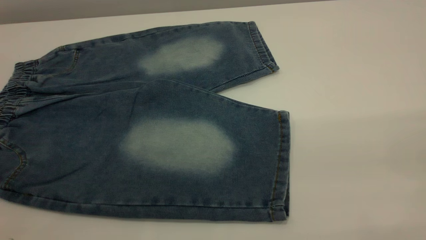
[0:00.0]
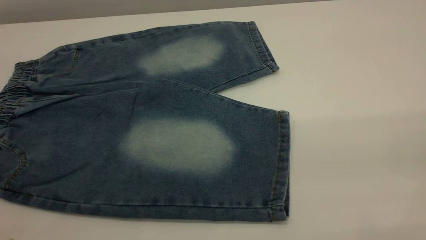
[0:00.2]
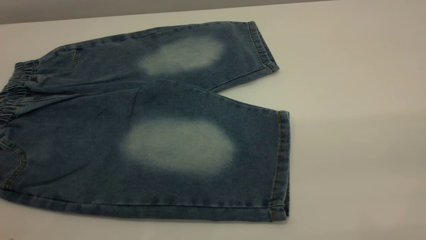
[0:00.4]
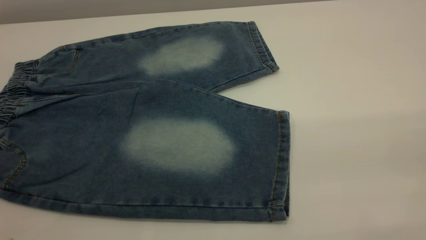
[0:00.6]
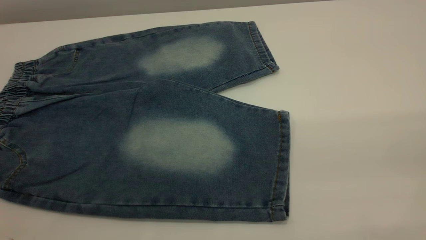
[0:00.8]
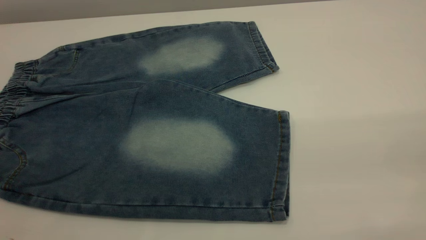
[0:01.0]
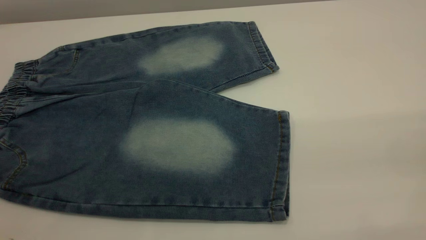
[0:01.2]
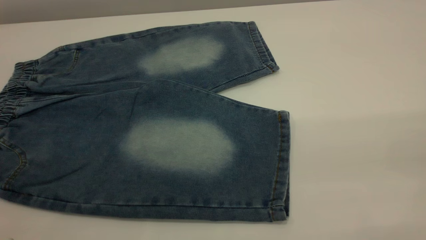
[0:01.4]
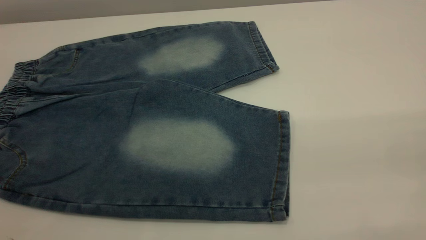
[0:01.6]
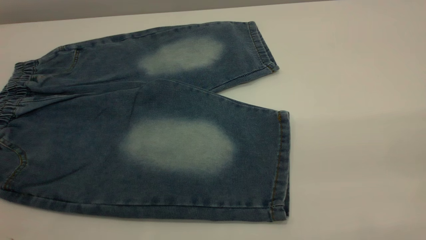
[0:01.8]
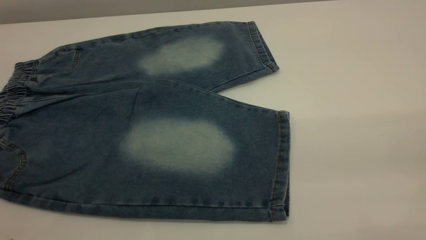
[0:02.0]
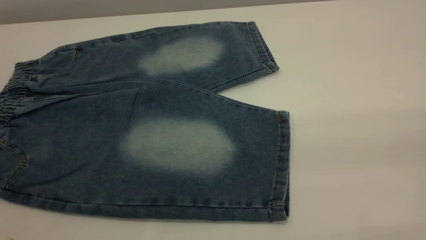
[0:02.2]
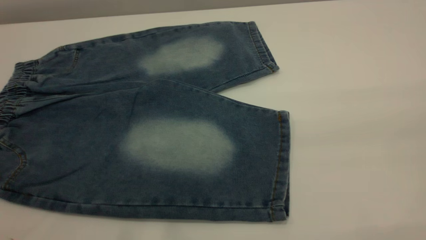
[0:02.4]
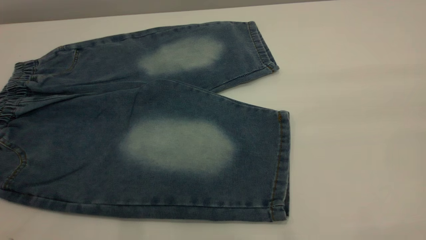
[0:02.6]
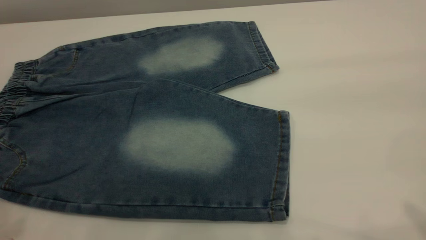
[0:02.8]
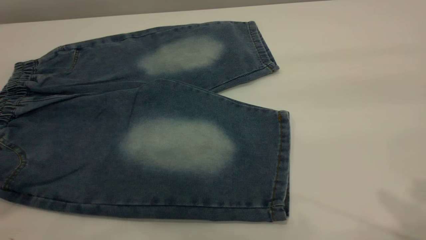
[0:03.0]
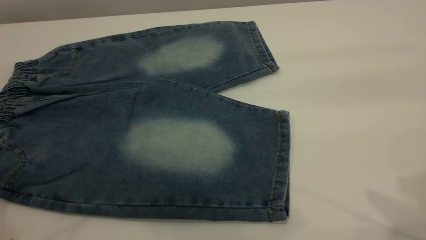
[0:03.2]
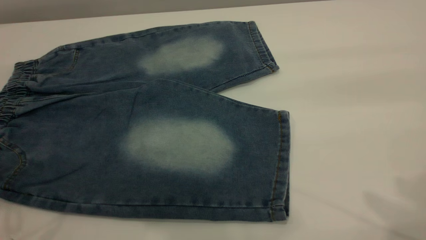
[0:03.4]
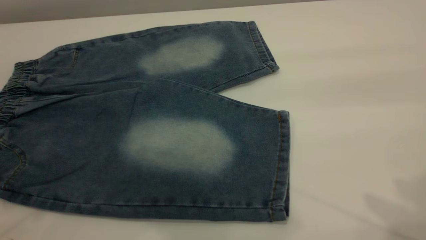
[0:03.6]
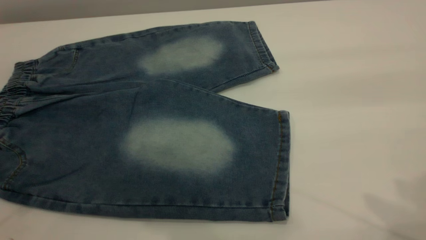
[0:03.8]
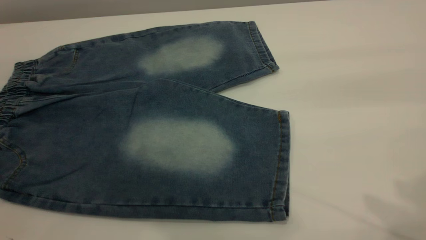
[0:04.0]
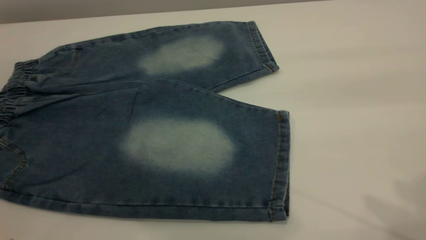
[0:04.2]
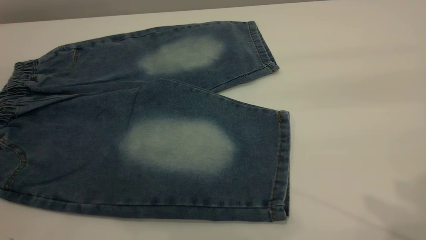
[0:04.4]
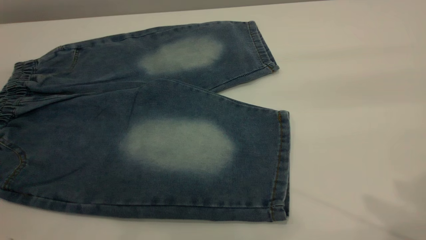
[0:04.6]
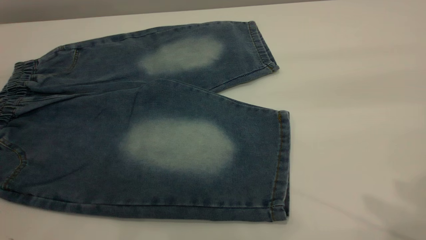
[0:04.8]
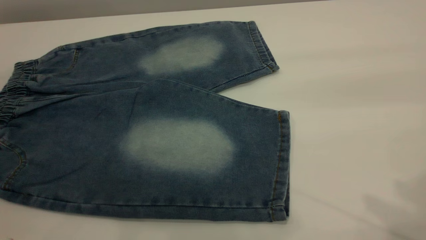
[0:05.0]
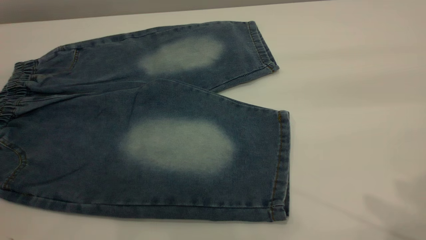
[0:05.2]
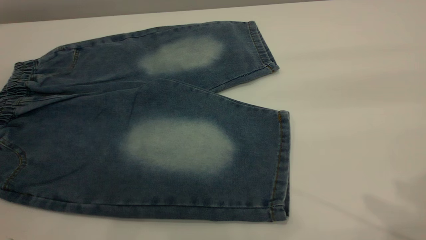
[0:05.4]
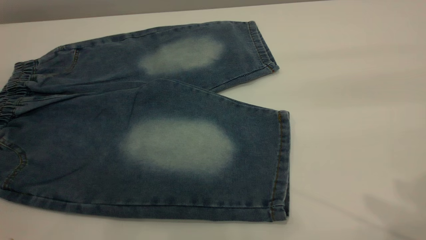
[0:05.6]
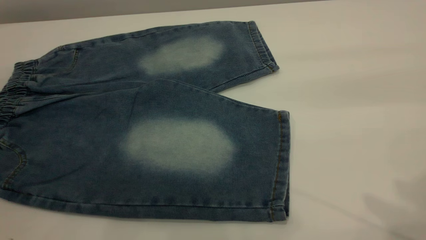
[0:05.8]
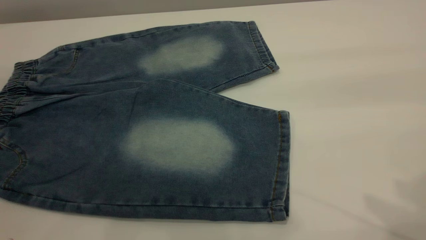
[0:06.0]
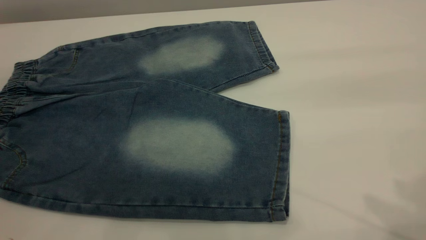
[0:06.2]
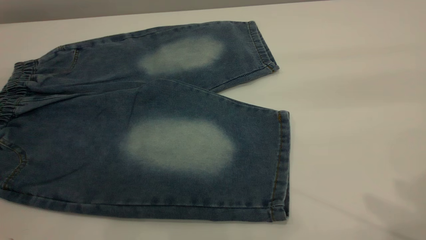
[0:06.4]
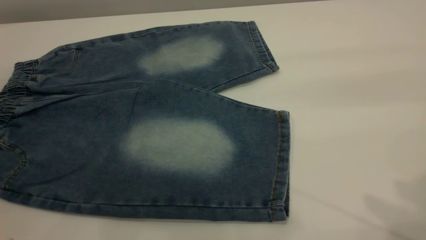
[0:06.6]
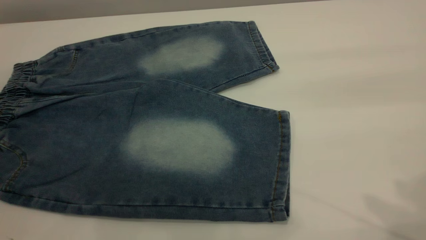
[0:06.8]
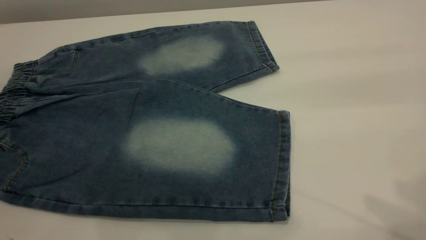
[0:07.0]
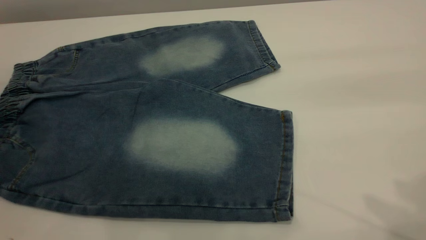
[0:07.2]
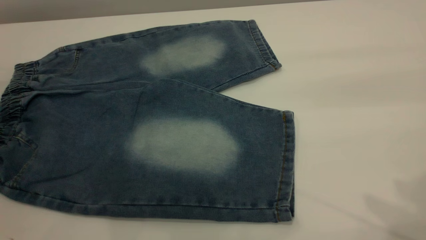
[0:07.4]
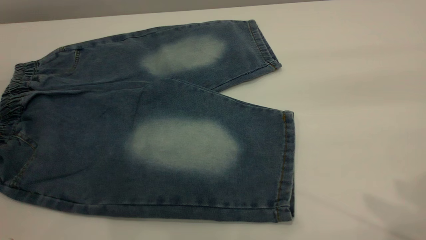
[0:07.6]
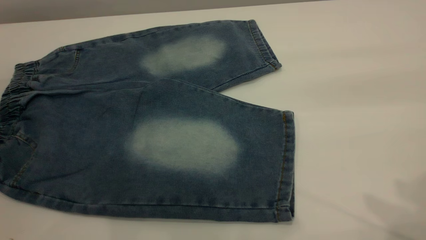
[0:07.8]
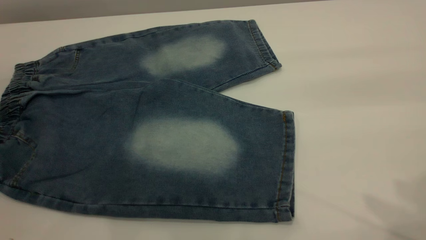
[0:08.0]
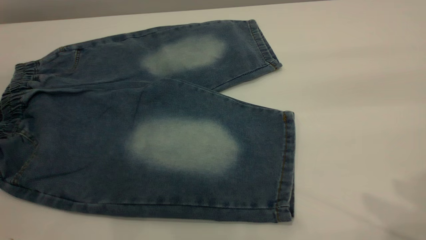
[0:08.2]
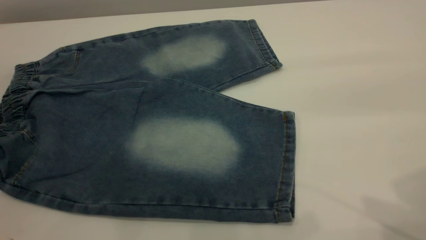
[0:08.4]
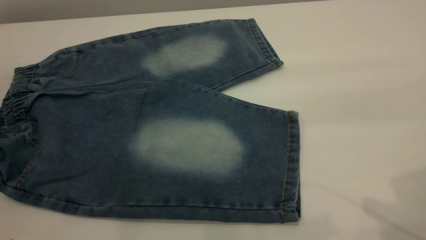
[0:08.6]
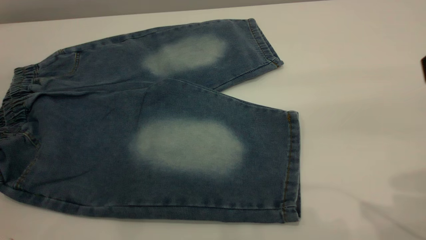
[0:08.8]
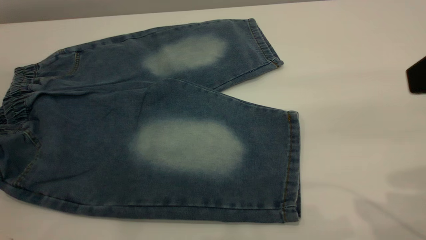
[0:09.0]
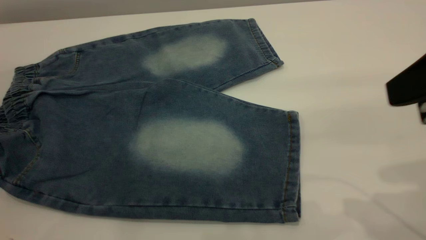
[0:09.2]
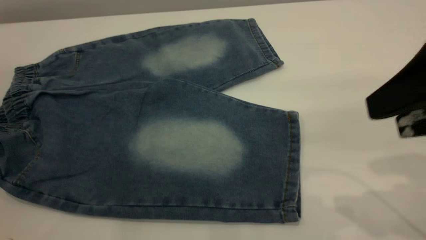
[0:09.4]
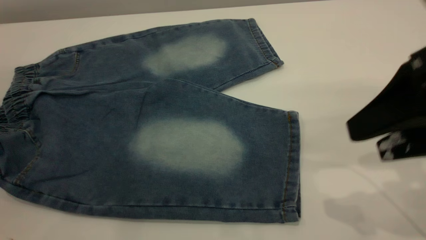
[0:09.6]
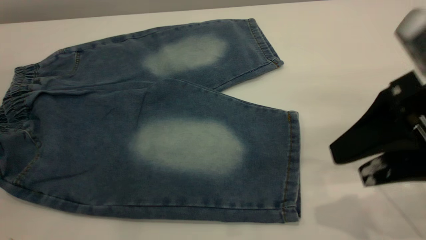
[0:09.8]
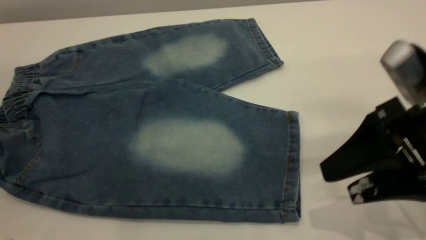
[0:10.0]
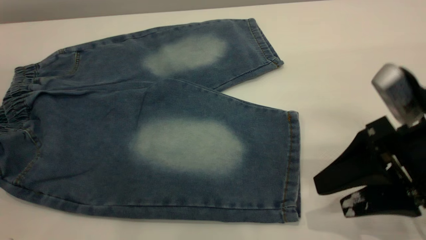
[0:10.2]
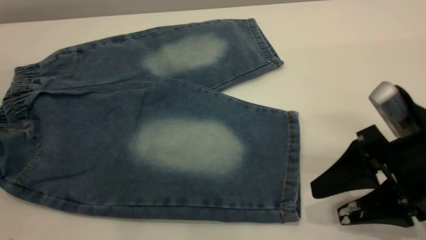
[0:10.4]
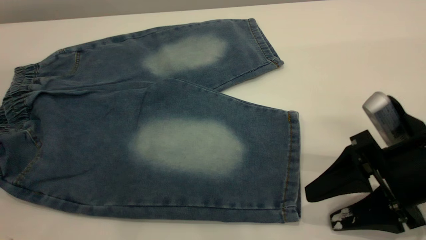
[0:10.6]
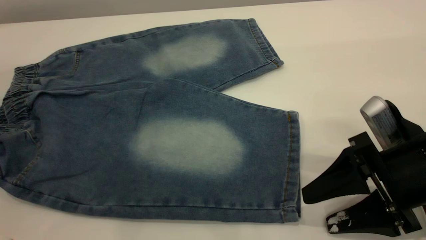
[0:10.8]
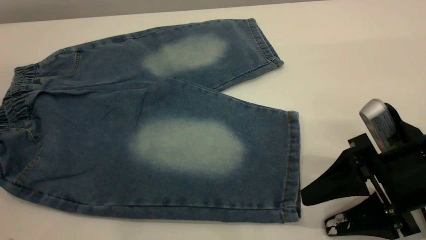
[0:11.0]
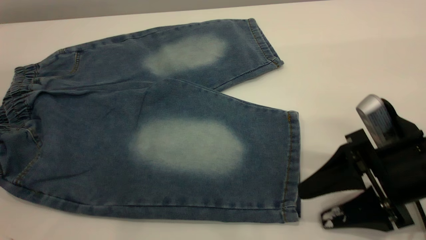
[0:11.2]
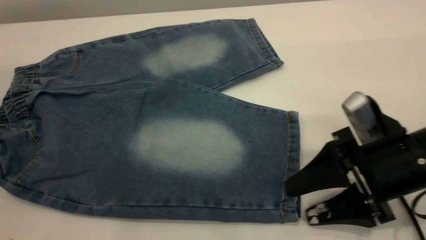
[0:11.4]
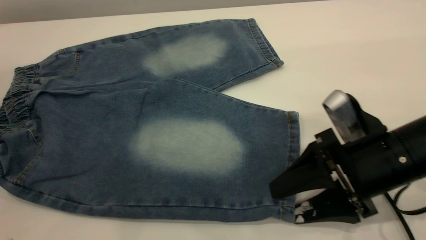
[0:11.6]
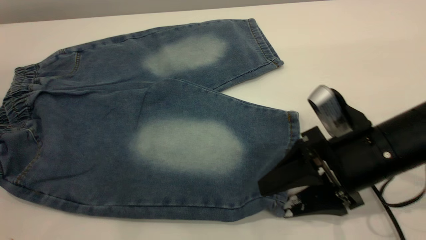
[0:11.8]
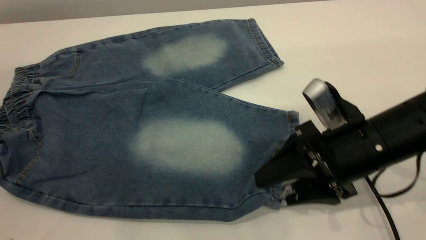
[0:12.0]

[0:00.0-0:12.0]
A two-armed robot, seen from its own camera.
0:00.0 to 0:01.6: The two grippers keep their place.
0:06.0 to 0:07.6: The left gripper closes up.
0:07.6 to 0:09.0: The right gripper is displaced downward by about 10 cm. The left gripper closes.
0:09.0 to 0:10.4: The right gripper travels downward by some 15 cm.
0:10.4 to 0:12.0: The right gripper ends up roughly 5 cm from where it was.

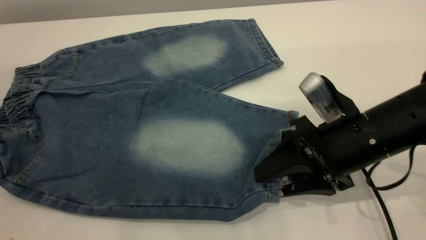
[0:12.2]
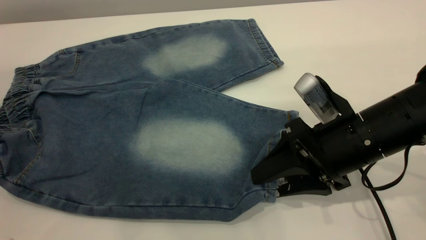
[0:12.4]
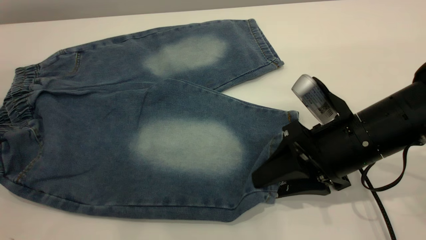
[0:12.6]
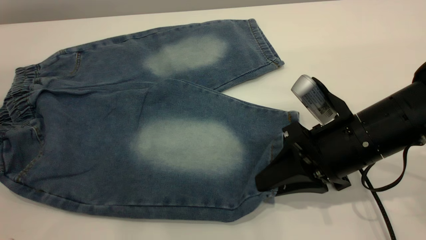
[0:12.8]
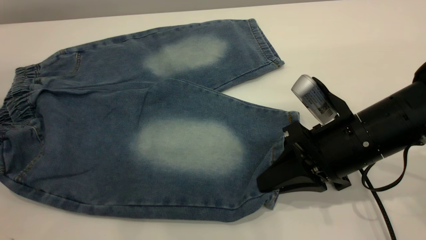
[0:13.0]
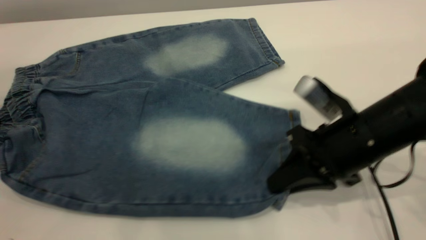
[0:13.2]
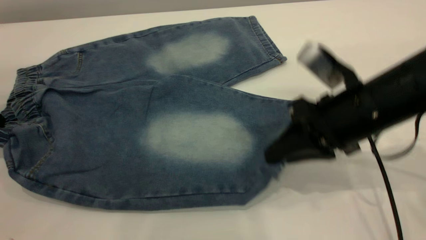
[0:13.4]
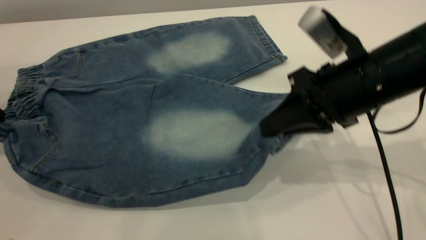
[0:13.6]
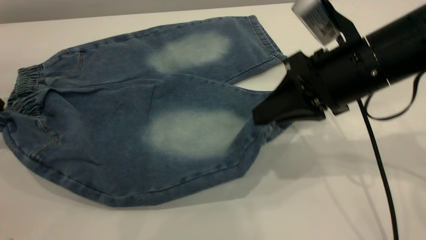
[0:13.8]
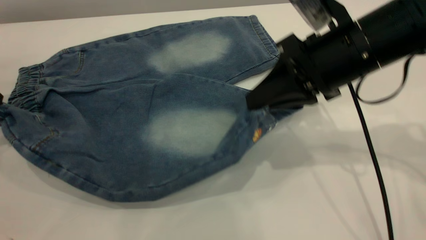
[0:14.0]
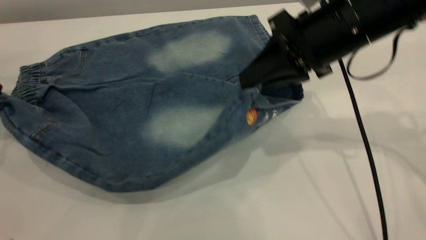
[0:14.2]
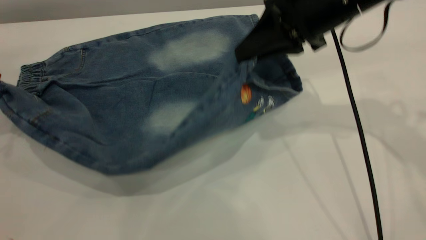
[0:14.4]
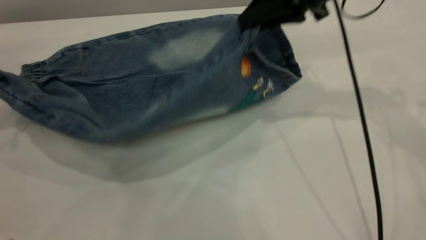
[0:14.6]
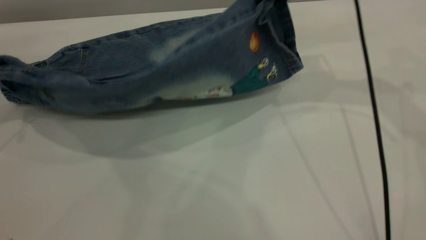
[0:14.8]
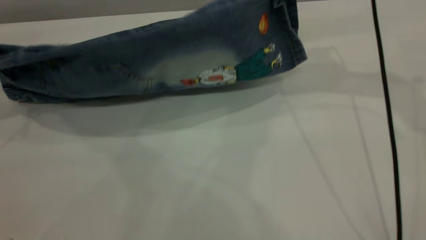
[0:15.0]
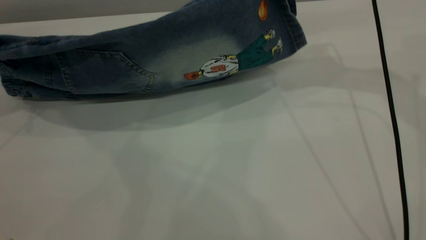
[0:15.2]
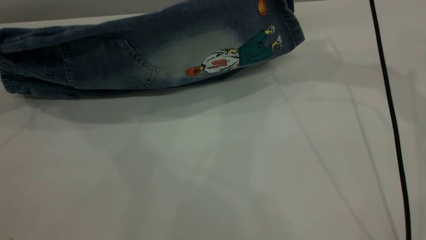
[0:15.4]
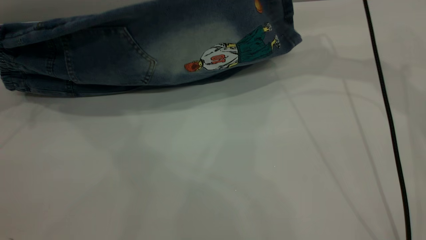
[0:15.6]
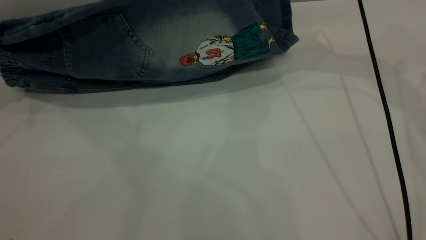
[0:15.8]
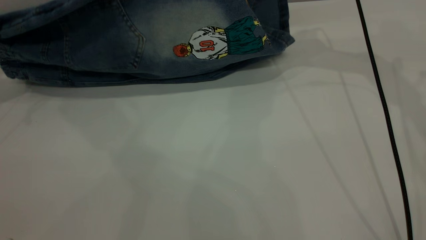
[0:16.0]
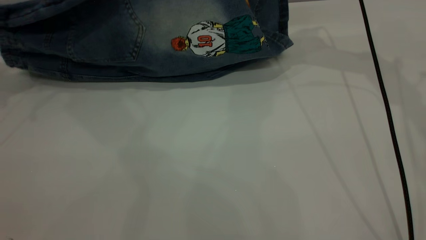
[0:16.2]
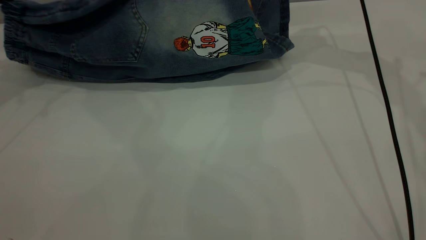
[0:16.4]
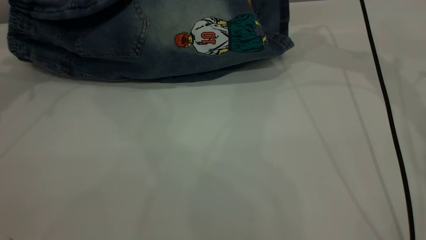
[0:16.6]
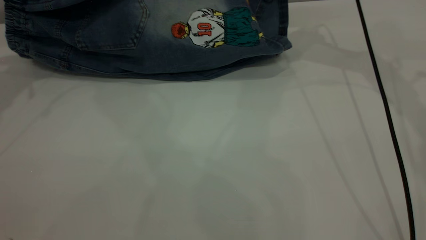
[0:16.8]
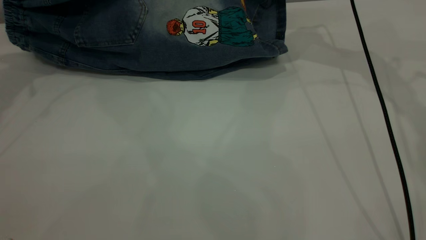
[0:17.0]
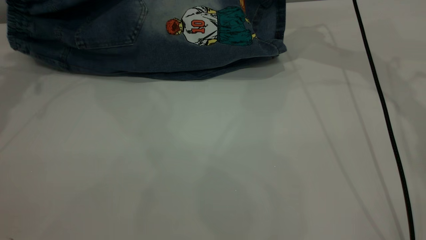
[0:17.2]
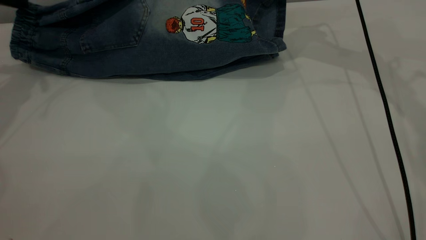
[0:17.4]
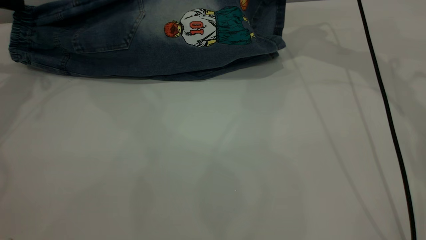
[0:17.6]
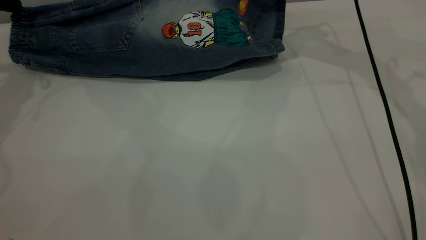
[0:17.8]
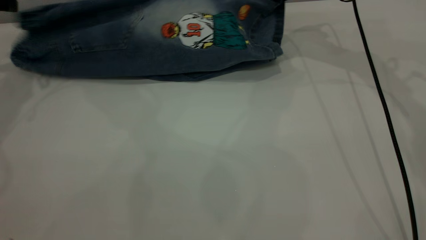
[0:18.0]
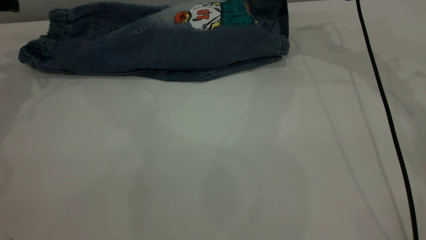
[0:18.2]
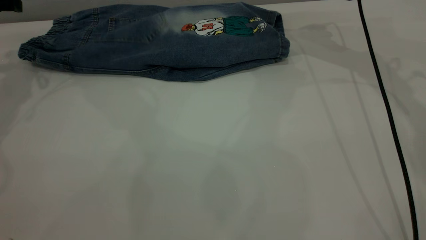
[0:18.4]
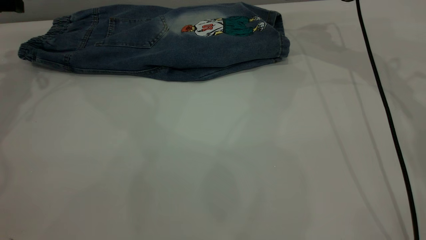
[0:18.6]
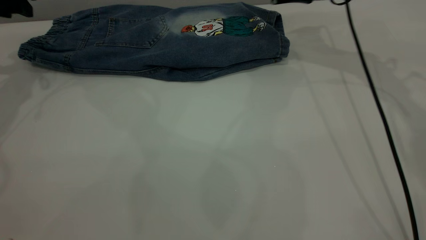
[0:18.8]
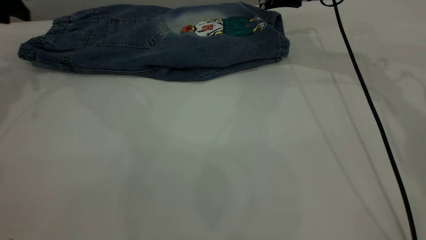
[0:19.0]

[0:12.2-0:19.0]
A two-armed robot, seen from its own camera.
Step, 0:12.2 to 0:18.4: Fold the bottom of the pants upward.
0:12.2 to 0:13.6: The right gripper travels upward by roughly 10 cm, and closes up.
0:13.6 to 0:15.0: The right gripper heads forward and upward, covering approximately 20 cm, while the left gripper moves upward and forward, roughly 10 cm.
0:15.0 to 0:16.2: The right gripper travels forward by approximately 5 cm.
0:16.2 to 0:17.6: The left gripper goes some 5 cm downward.
0:17.6 to 0:19.0: The left gripper opens; the right gripper opens.
